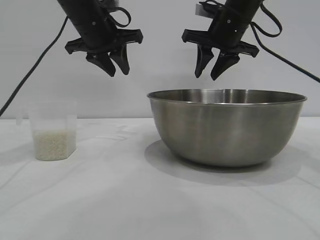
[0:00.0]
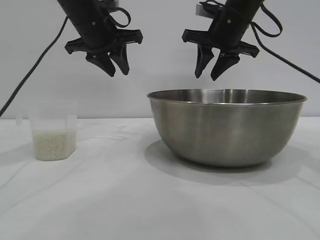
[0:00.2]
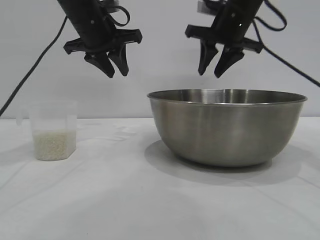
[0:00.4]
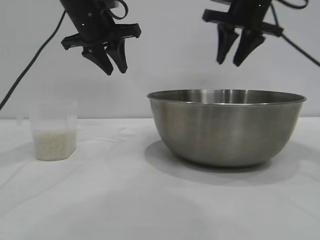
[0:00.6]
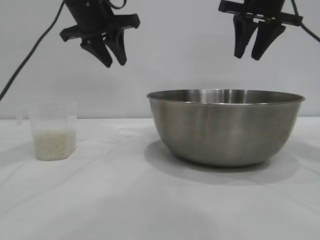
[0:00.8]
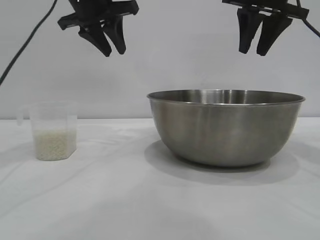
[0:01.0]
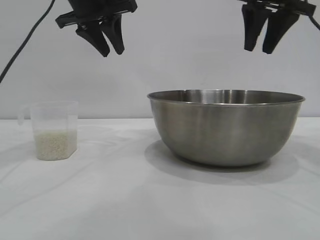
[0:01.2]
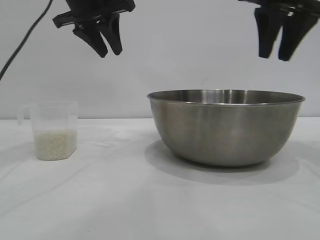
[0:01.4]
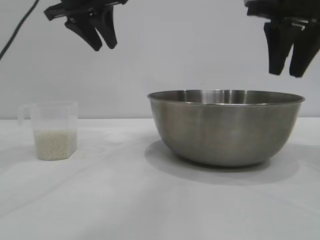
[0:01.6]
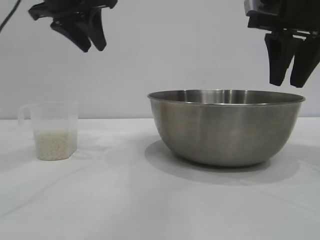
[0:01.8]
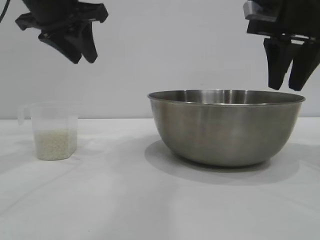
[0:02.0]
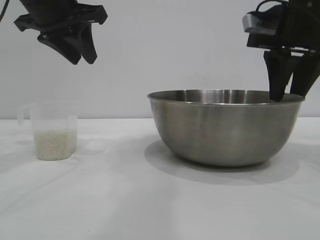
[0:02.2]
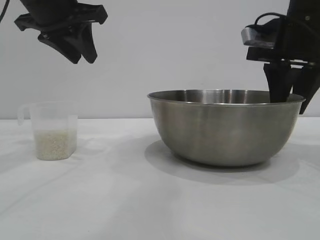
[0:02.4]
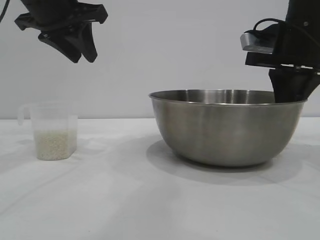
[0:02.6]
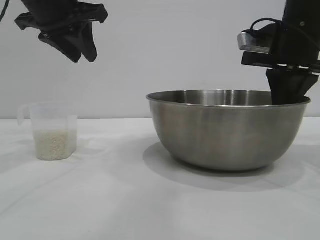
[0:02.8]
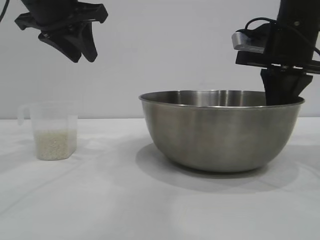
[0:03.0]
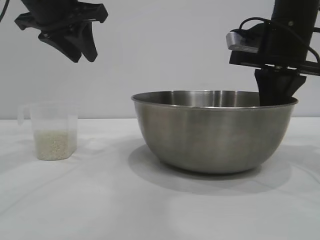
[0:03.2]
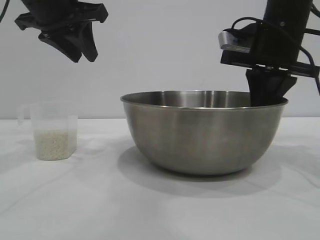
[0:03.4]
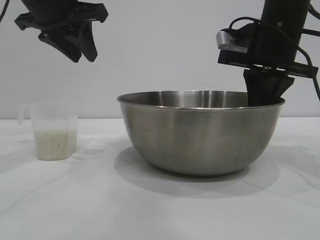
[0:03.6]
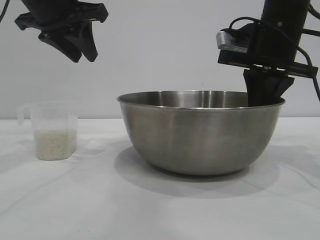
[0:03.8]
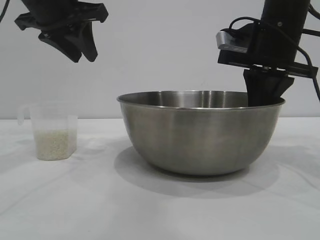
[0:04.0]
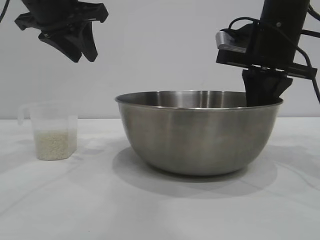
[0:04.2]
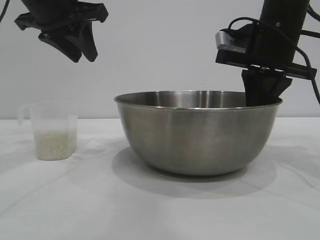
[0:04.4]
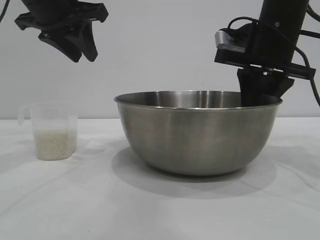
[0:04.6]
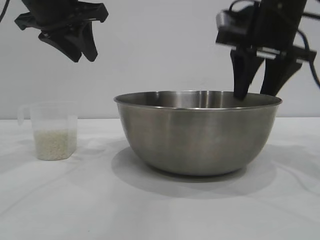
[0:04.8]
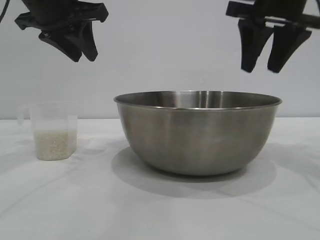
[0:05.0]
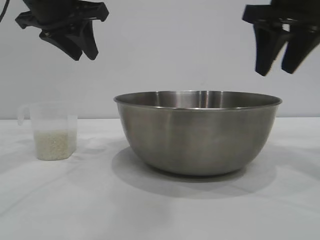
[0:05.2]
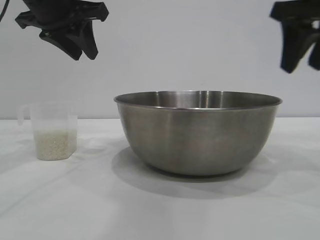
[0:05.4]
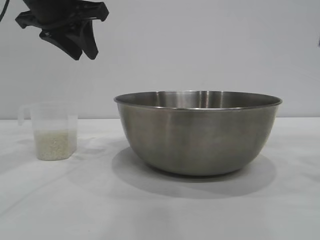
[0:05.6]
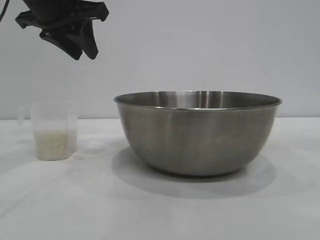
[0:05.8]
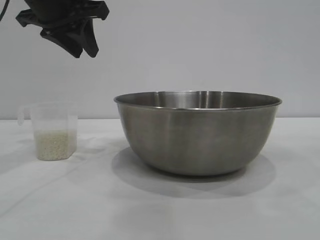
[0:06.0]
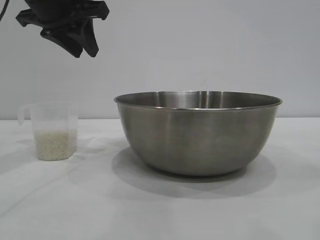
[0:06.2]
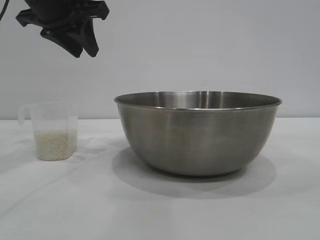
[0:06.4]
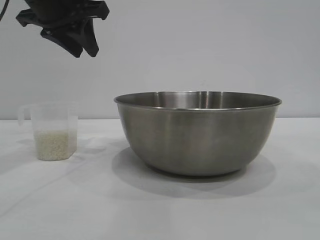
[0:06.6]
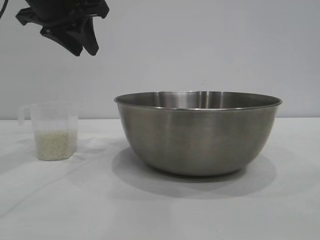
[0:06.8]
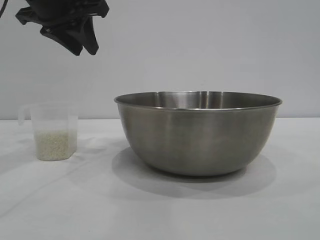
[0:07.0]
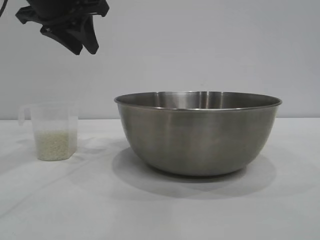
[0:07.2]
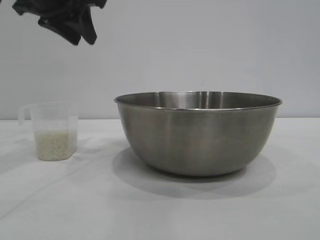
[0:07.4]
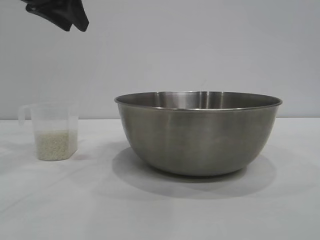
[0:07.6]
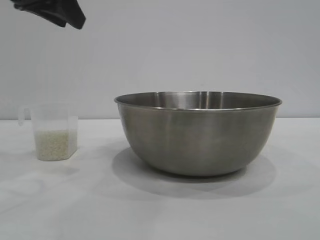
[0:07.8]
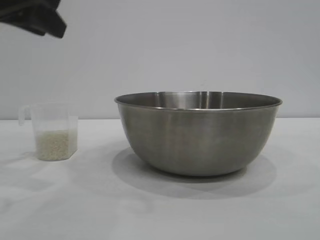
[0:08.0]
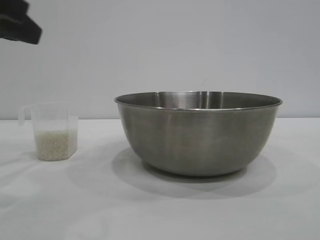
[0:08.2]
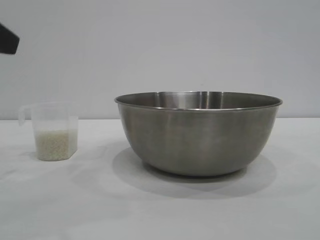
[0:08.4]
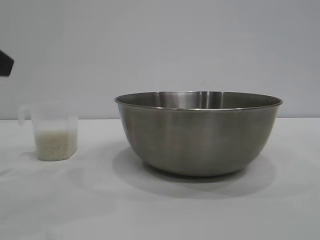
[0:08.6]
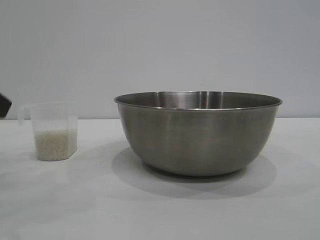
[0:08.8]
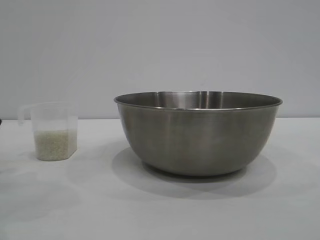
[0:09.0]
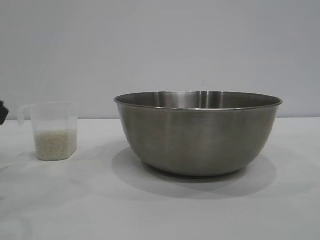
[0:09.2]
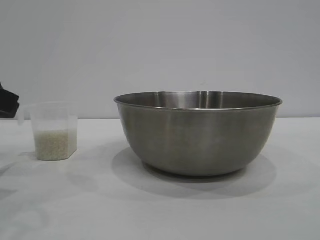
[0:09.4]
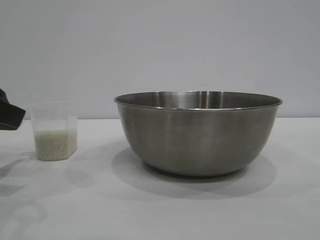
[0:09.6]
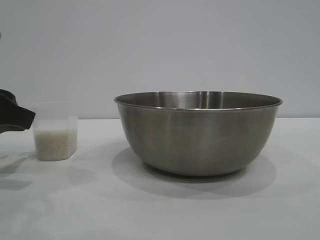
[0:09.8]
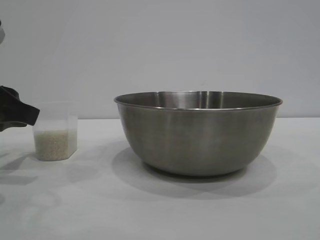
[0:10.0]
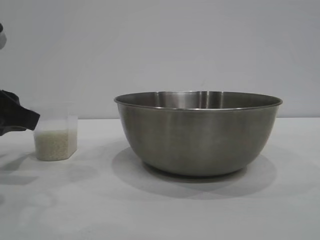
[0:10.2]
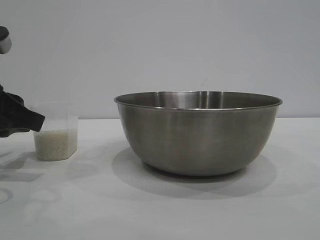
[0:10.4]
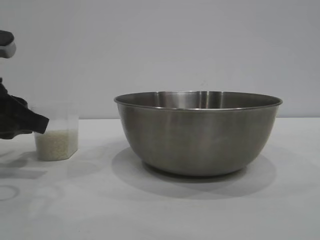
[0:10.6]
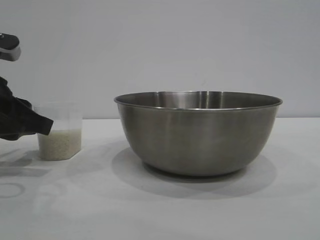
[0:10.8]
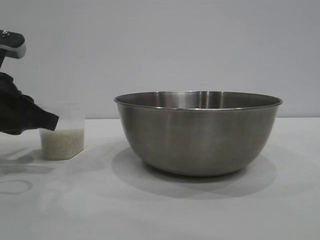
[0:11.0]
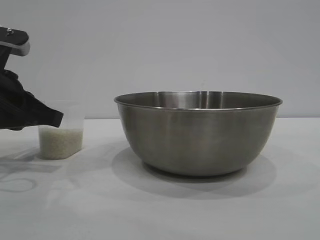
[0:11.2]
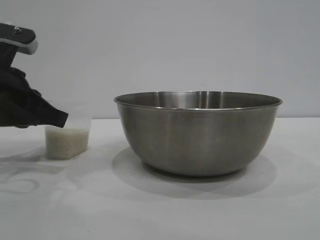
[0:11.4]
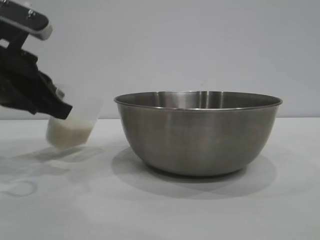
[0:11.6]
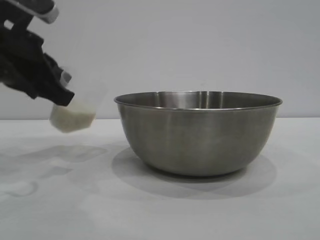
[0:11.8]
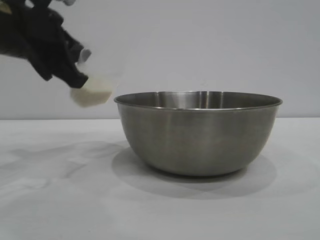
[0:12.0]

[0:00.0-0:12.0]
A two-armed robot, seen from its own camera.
Task of the whole recording: the right gripper grasp the rice container and place it in the center of the table, the left gripper grasp the rice scoop and pour the rice into the rice container.
Step, 0:00.0 to 0:05.0: Move the bowl to the center of view with the right gripper.
Step, 0:05.2 to 0:11.8: Pick up the cup with rice in it with the left gripper.

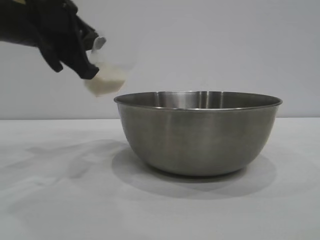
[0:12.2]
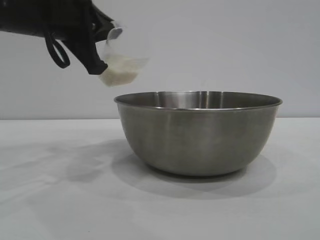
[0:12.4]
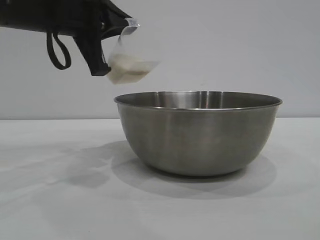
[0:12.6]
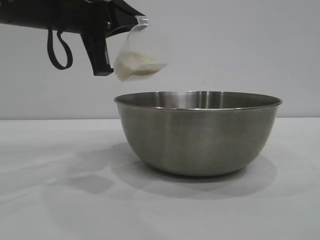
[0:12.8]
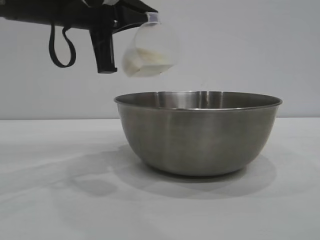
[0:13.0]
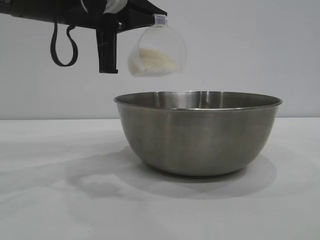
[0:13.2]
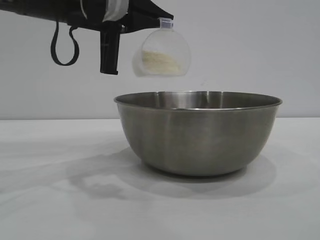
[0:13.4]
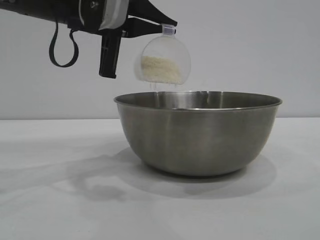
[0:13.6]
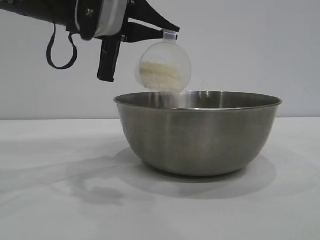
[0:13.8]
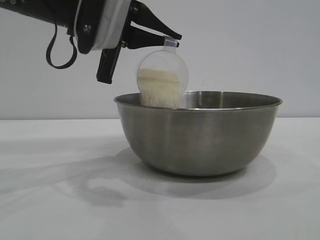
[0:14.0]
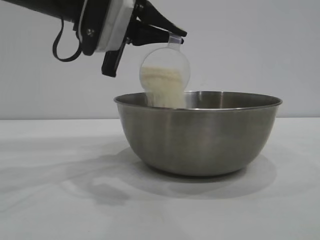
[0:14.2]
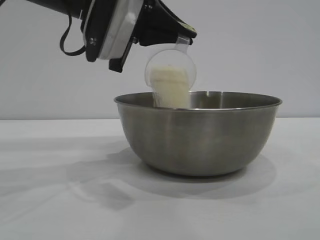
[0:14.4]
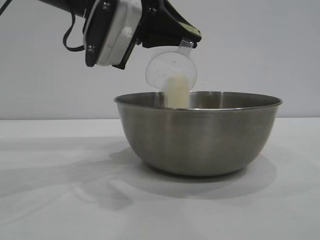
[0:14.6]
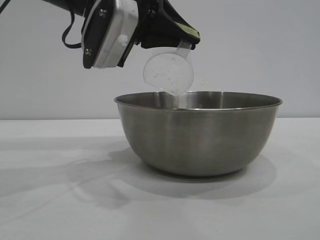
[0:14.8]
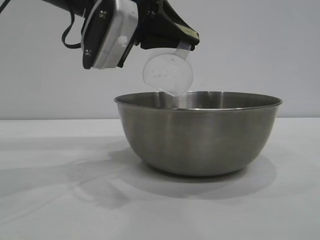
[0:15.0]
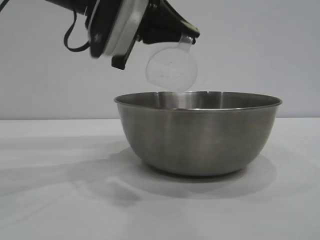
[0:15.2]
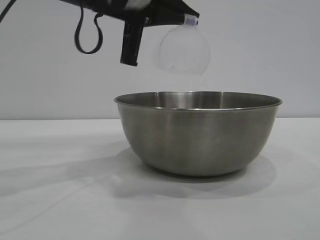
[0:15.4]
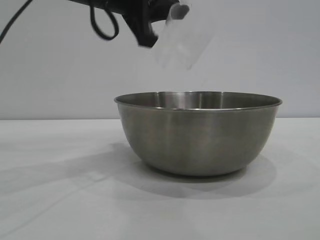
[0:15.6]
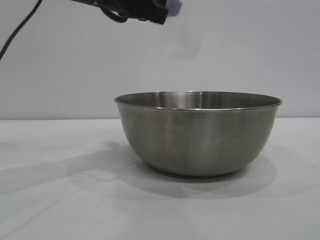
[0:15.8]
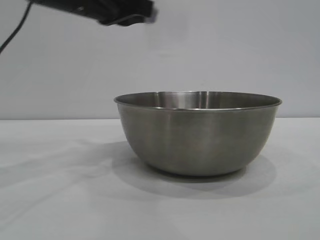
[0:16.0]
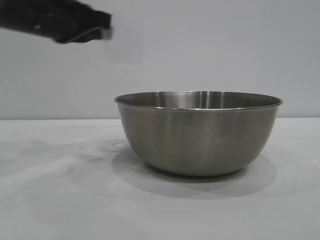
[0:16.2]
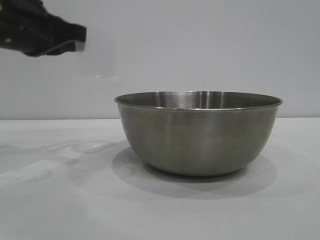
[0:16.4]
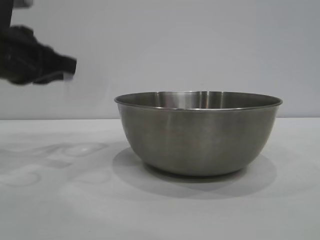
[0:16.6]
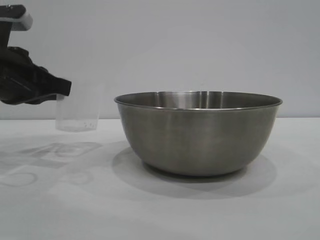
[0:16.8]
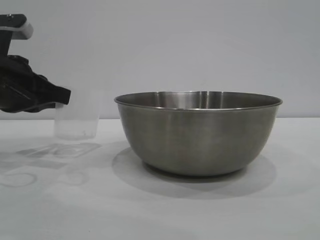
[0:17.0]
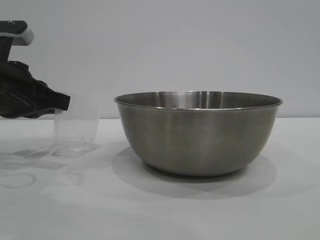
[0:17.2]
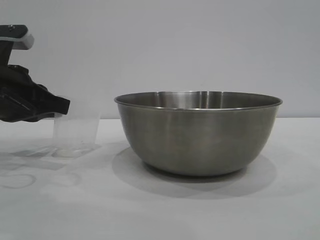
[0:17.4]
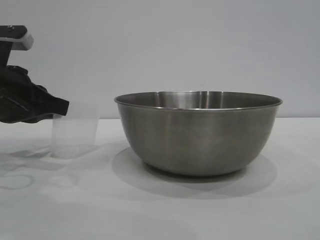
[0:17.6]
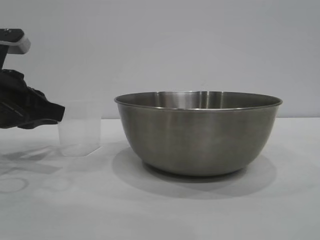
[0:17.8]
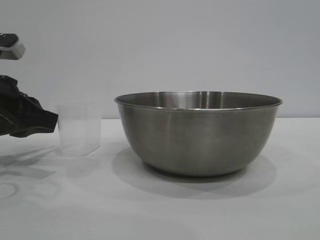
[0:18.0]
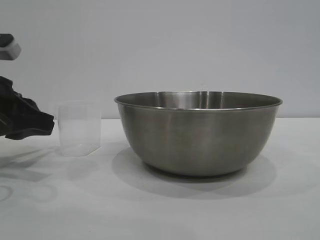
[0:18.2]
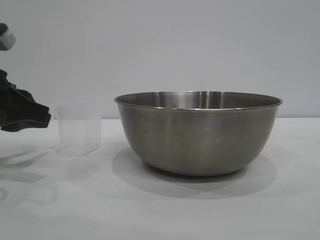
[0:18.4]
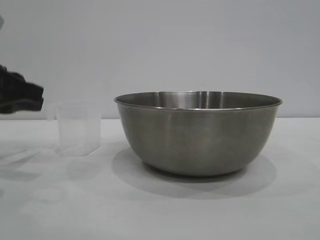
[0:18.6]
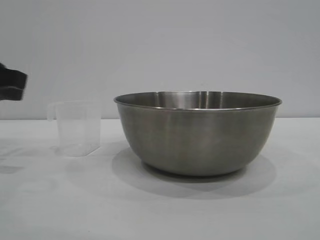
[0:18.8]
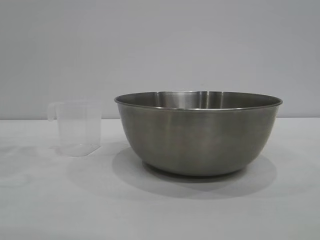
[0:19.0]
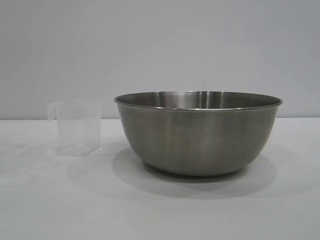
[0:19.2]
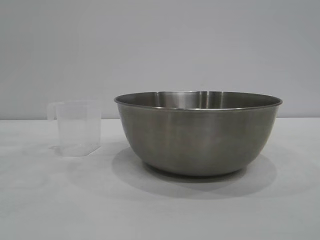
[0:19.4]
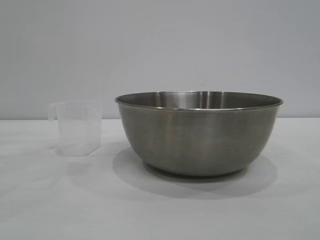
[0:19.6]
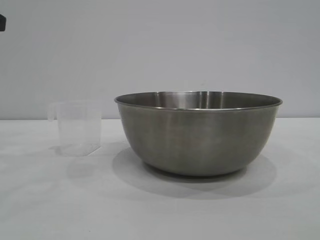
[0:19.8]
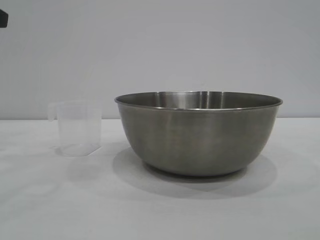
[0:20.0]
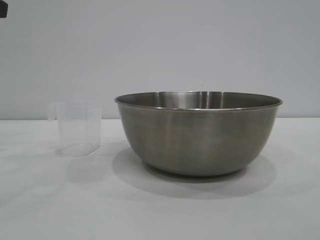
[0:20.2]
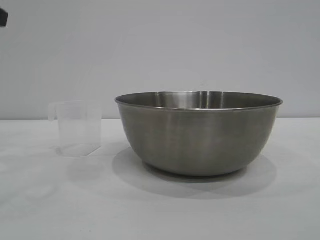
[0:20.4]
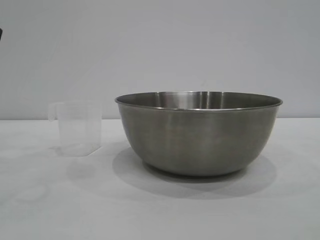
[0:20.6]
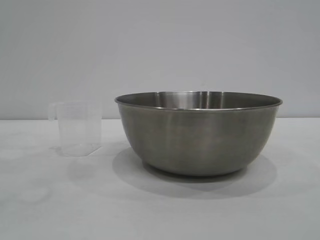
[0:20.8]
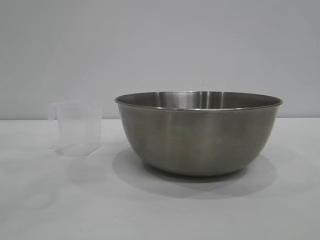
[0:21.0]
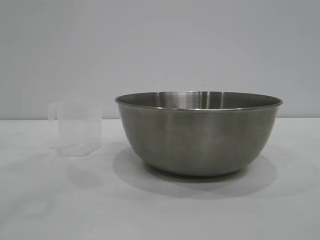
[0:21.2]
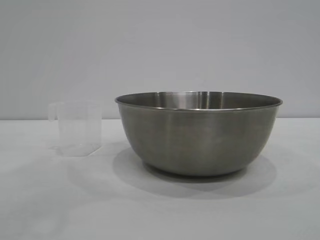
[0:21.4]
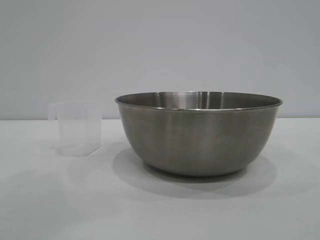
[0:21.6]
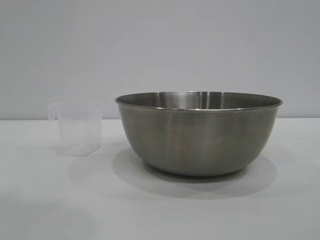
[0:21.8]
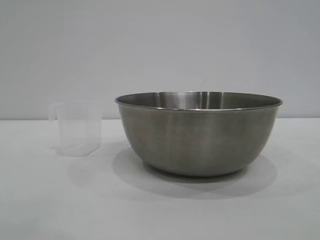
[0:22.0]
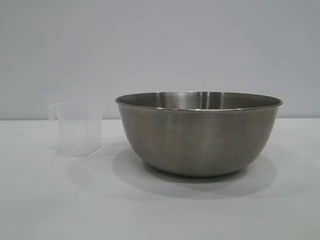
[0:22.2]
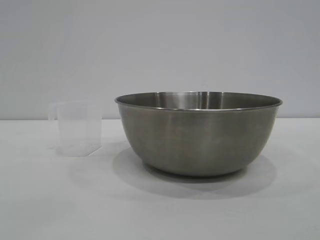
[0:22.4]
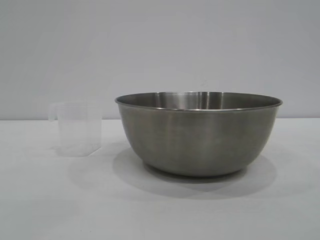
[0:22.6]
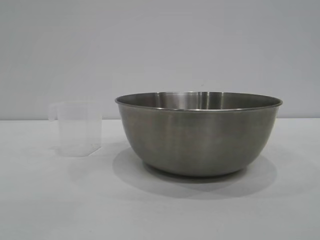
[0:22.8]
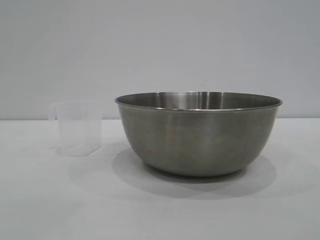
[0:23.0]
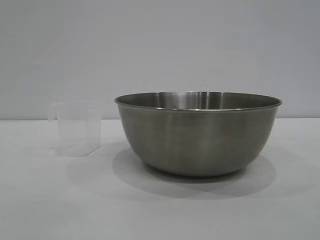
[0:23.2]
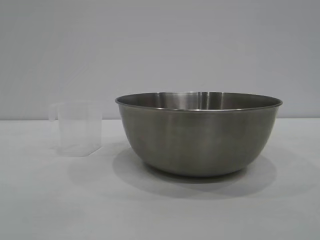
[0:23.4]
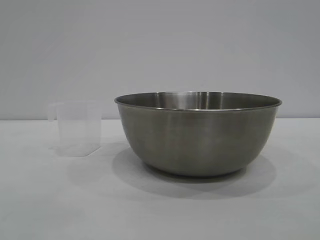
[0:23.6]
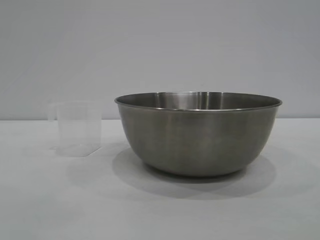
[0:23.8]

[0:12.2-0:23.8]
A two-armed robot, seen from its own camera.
Task of the whole recording: the right gripper grasp the rice container and place it in the center of the table, the left gripper grasp the rice scoop and pour the rice into the rice container.
Step, 0:12.2 to 0:15.2: Pour the rice from the cup into the bowl with the left gripper.
Step, 0:15.4 to 0:19.6: Place the cup on the table with the left gripper.
